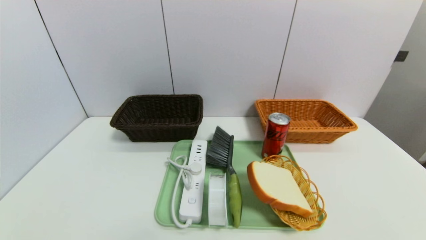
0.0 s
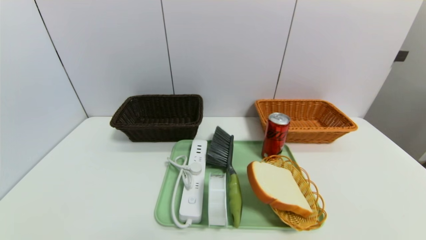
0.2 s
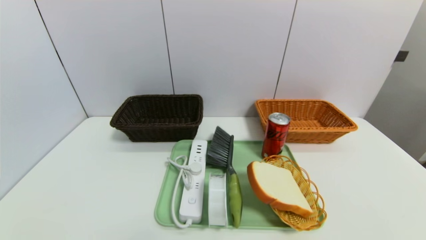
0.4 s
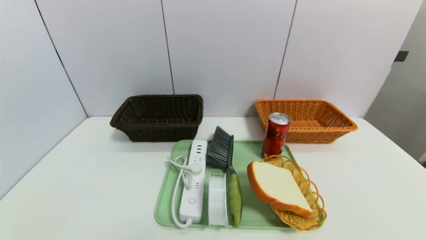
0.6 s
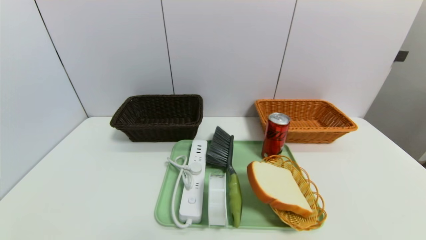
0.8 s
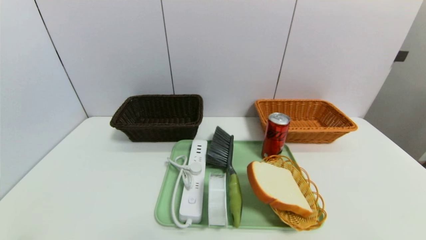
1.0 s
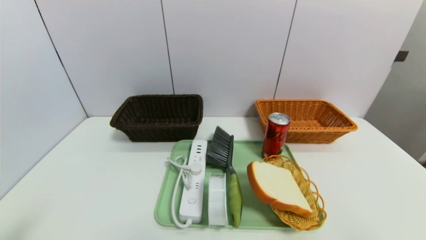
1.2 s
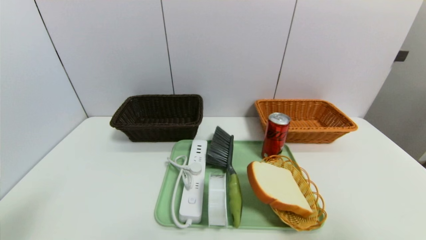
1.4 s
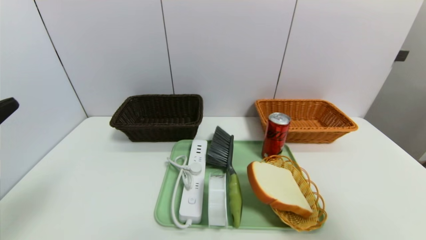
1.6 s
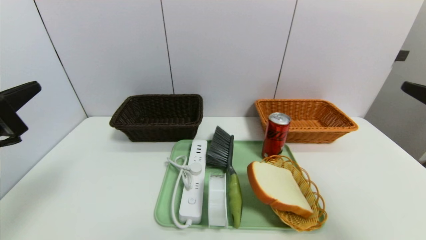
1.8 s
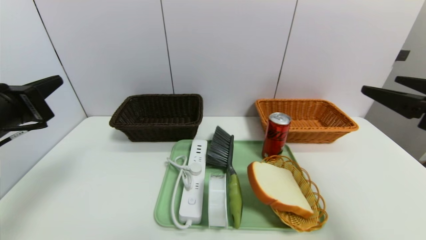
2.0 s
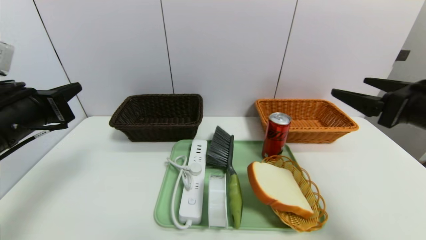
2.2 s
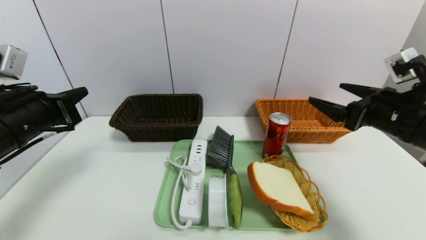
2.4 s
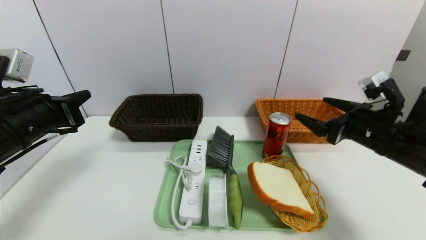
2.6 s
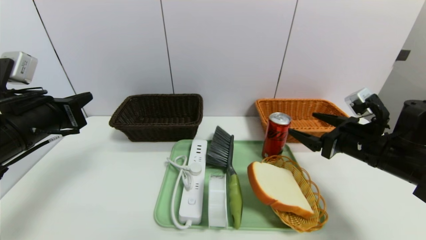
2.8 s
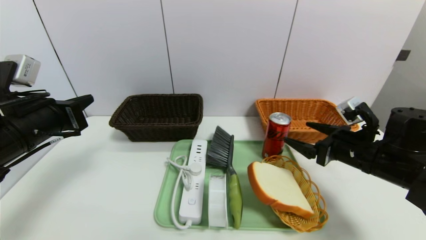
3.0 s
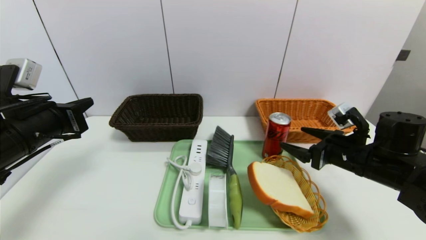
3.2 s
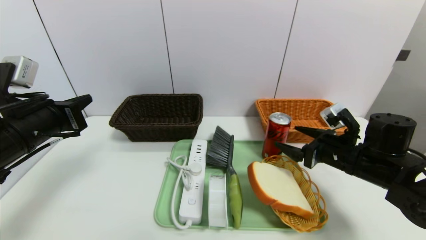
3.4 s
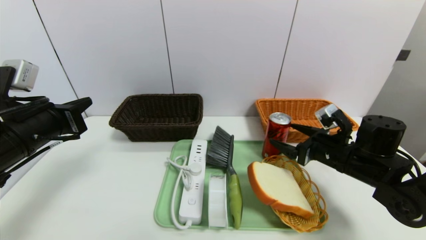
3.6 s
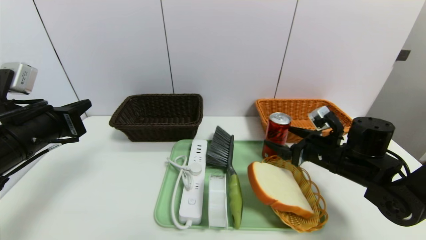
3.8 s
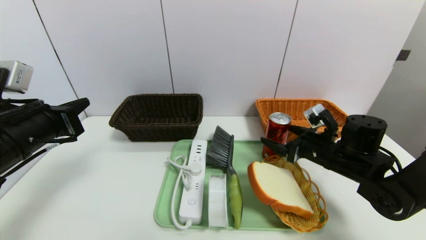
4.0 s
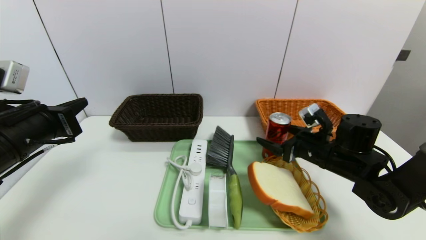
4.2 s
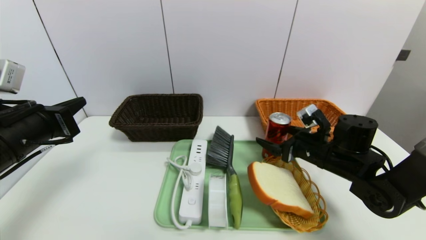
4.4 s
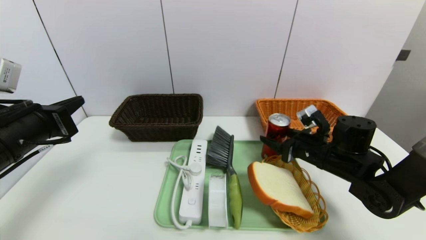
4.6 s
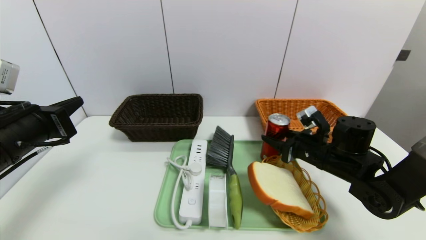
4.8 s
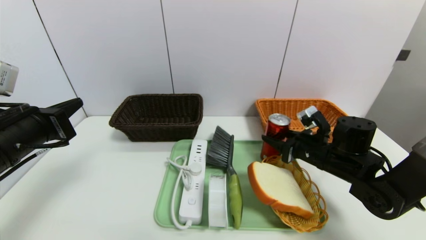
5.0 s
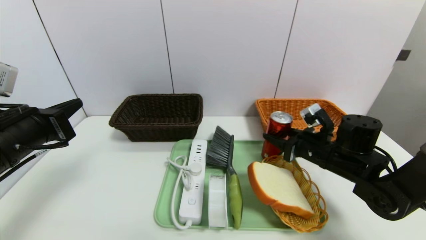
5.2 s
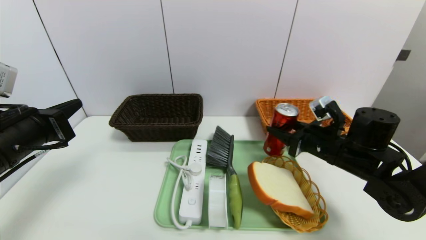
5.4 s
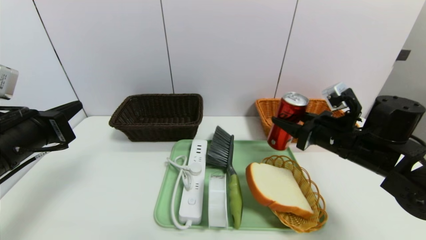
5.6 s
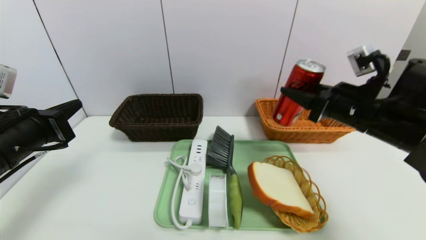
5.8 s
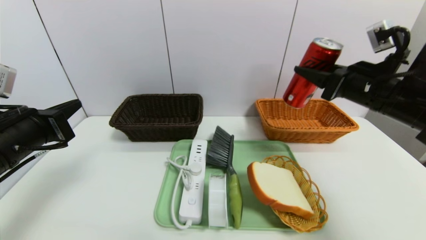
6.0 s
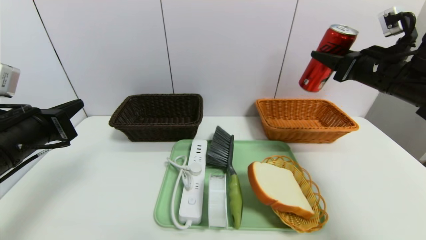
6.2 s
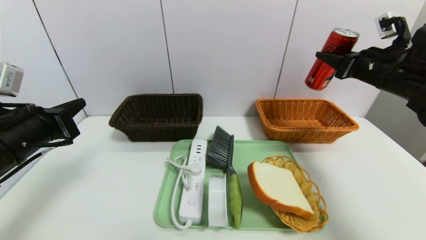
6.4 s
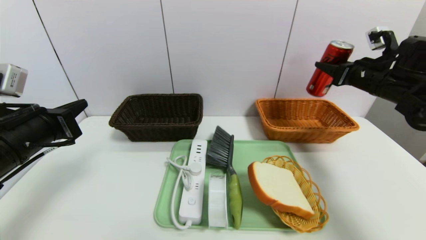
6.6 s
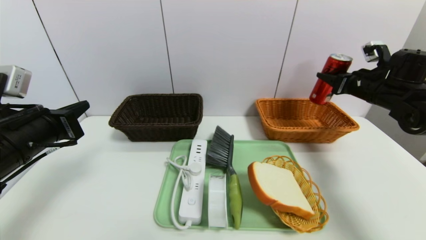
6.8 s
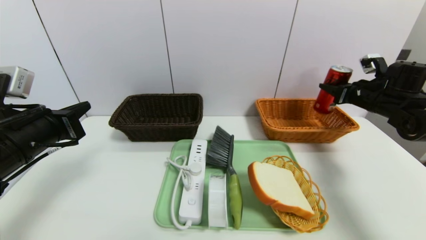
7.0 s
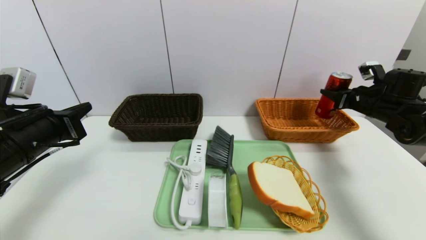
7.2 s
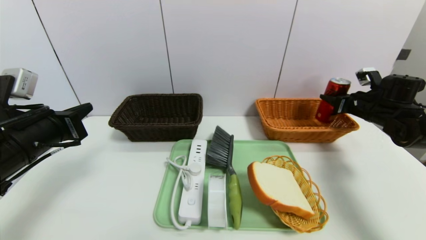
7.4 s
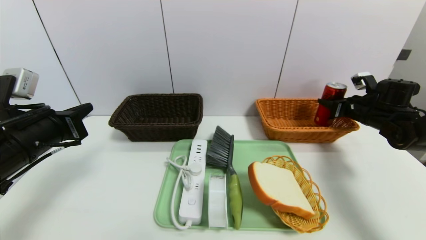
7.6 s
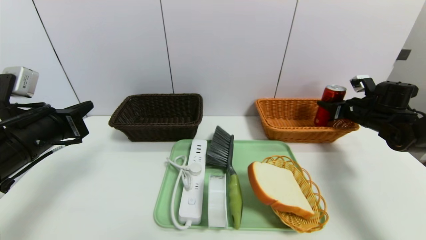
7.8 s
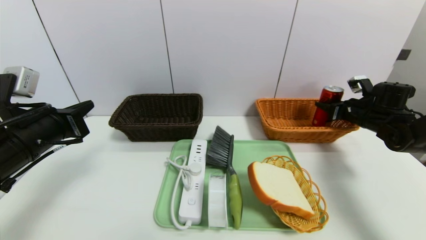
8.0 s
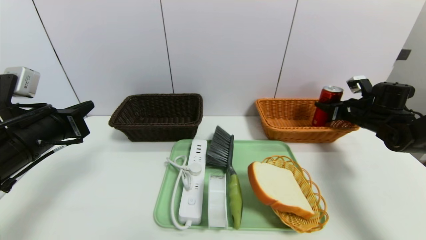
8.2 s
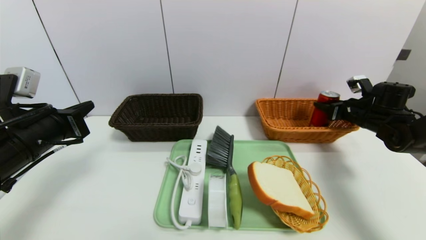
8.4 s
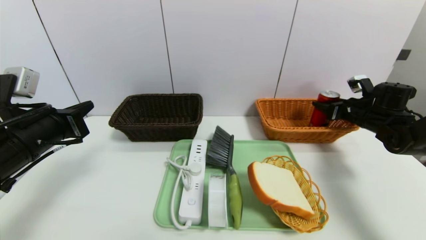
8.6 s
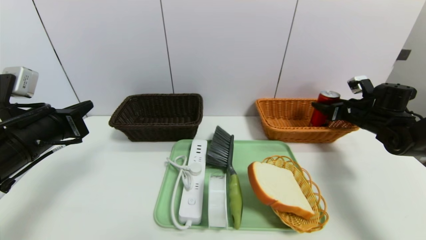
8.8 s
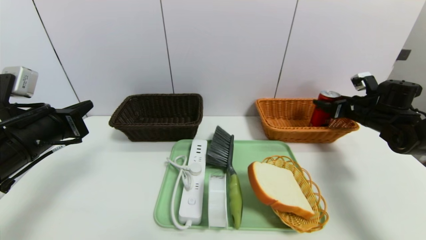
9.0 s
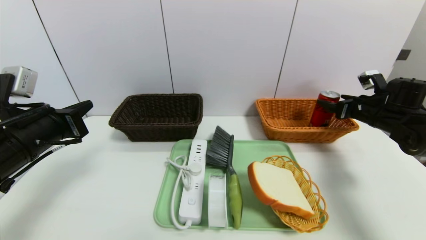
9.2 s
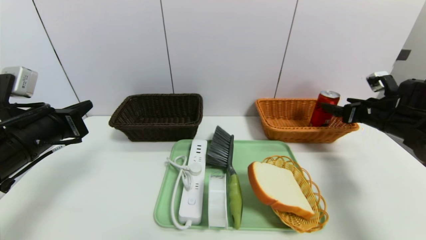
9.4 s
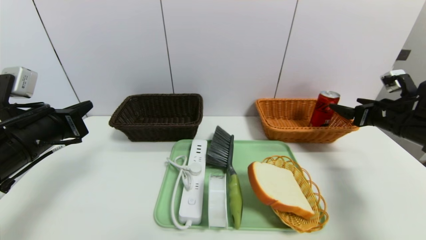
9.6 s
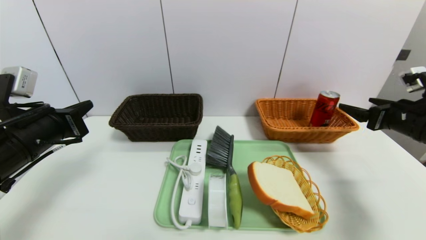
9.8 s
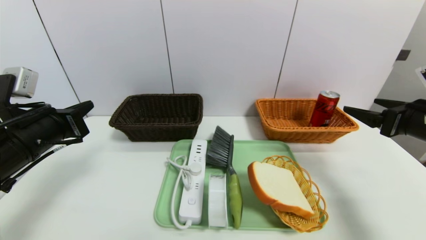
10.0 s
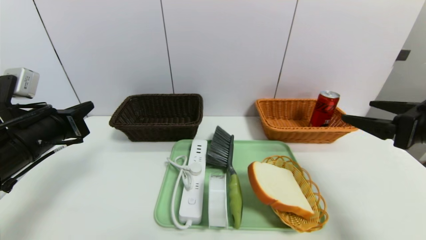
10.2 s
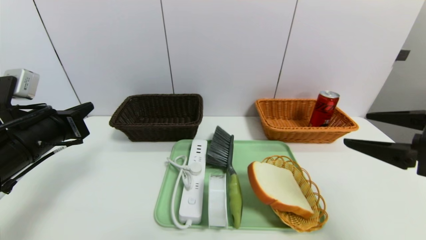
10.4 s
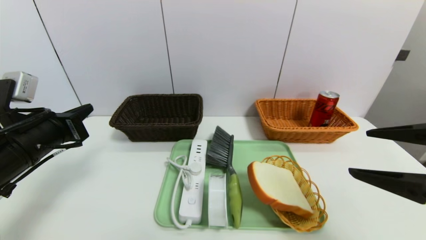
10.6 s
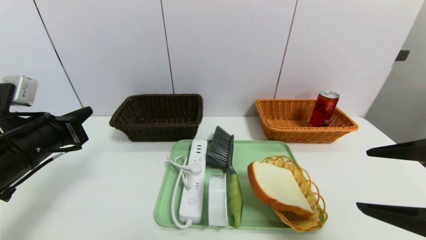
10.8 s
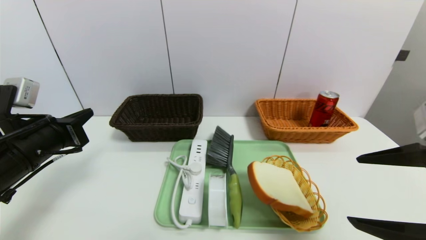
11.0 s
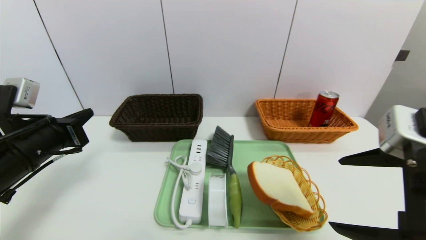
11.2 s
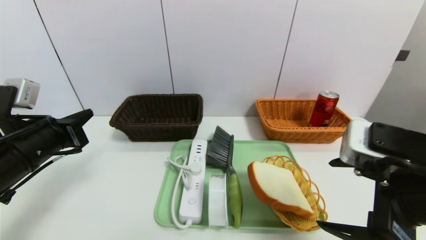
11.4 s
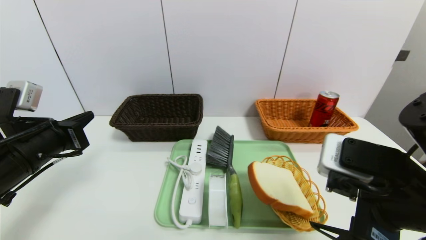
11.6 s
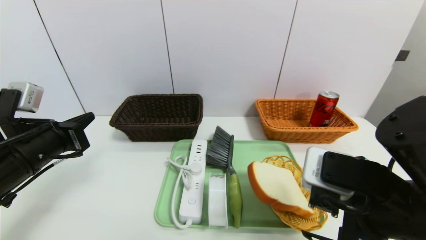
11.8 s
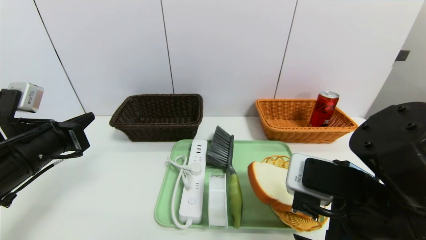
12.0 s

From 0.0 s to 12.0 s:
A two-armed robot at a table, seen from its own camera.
Task of the whole recording: place the food in the right basket with the right gripper, and place the non food items in the left basket with the left gripper.
Step, from 0.0 s to 9.6 s: Grasp the canned cola and put it in the right basket.
From 0.0 s to 1.6 s: Both grippers travel together upward and forward, roughly 25 cm.
From 1.6 s to 3.0 s: The right gripper moves forward and downward, some 20 cm; the left gripper heads forward, covering about 10 cm.
From 3.0 s to 4.4 s: The right gripper ends up about 5 cm from where it was.
From 4.4 s to 6.0 s: The right gripper heads upward, covering approximately 15 cm, and closes.
From 6.0 s to 7.6 s: The right gripper heads to the right, downward and forward, covering approximately 20 cm.
From 7.6 s to 9.0 s: The right gripper opens.
From 9.0 s to 10.4 s: The right gripper moves backward and upward, roughly 25 cm.
From 10.4 s to 12.0 s: The right gripper is displaced to the left by about 15 cm.

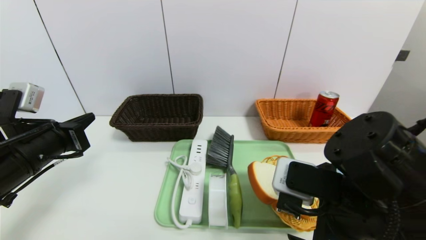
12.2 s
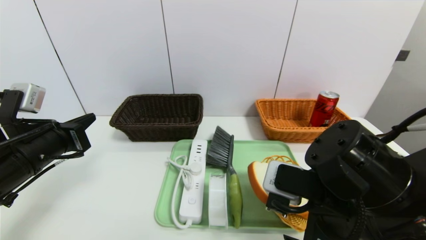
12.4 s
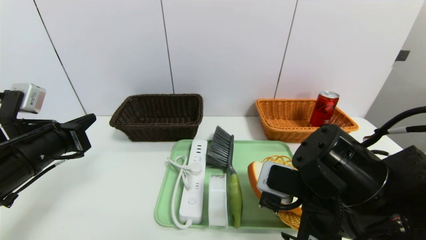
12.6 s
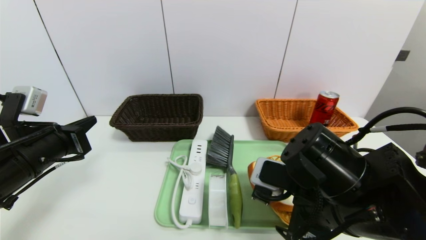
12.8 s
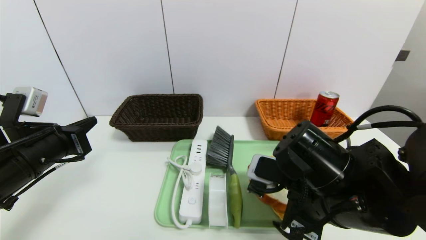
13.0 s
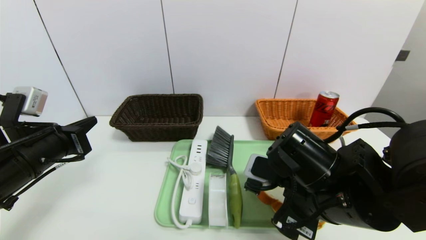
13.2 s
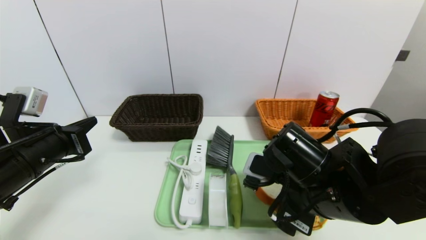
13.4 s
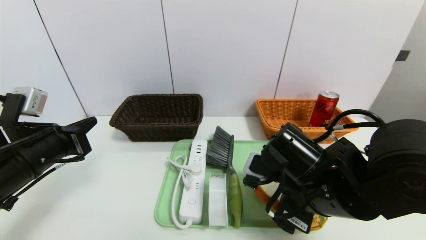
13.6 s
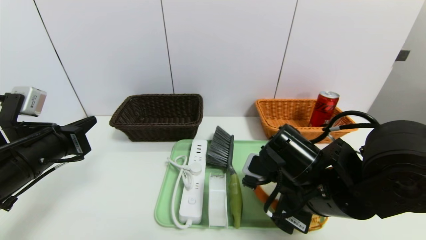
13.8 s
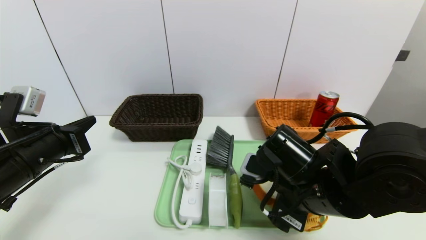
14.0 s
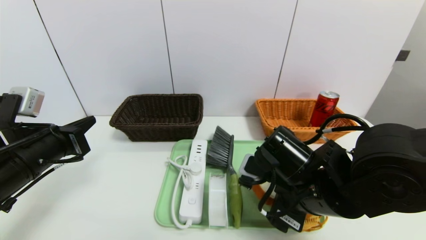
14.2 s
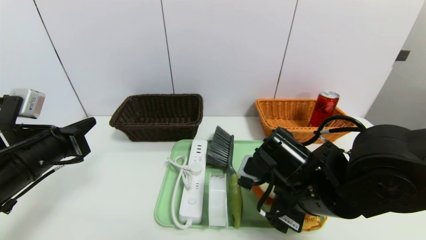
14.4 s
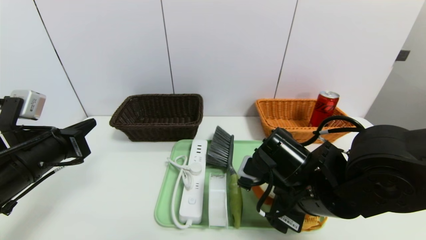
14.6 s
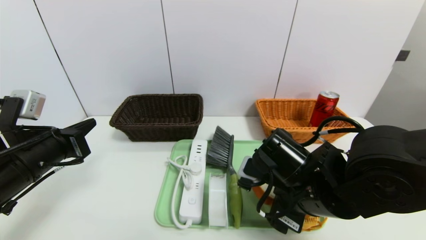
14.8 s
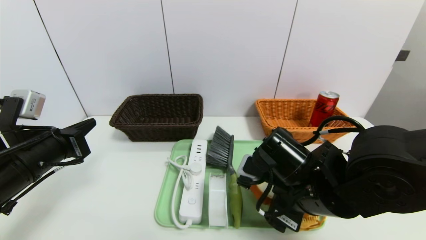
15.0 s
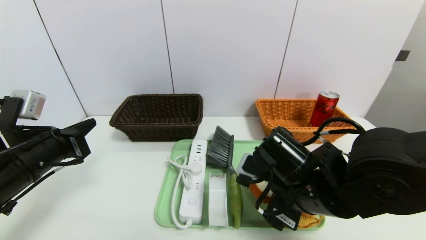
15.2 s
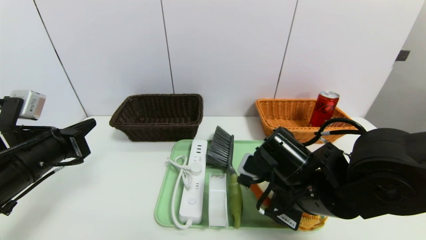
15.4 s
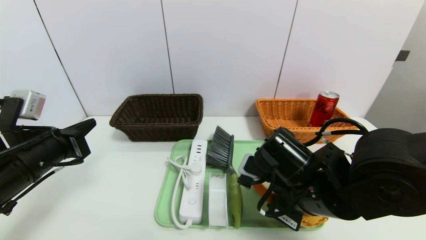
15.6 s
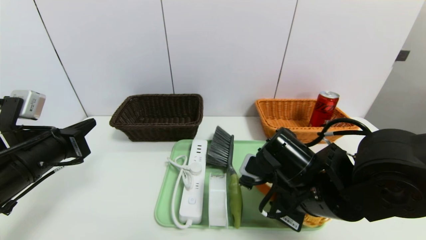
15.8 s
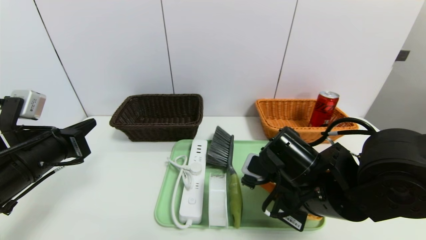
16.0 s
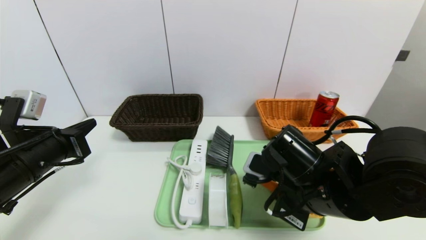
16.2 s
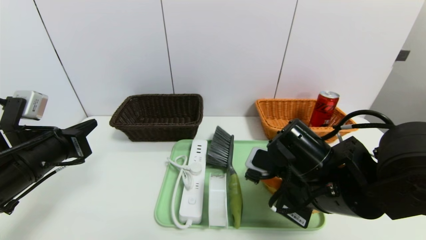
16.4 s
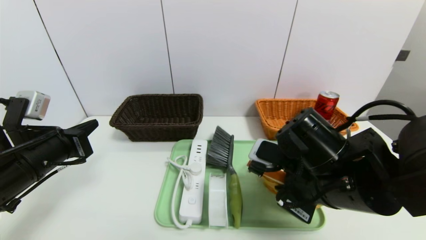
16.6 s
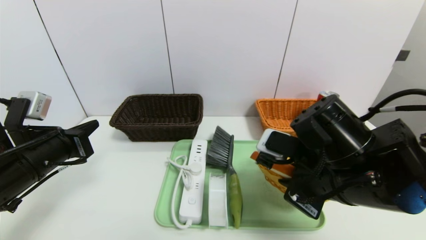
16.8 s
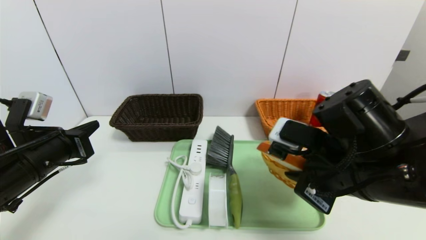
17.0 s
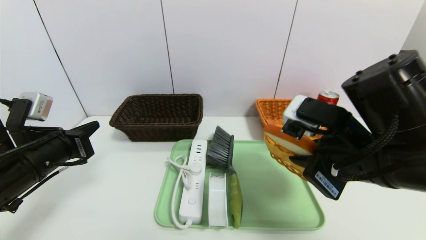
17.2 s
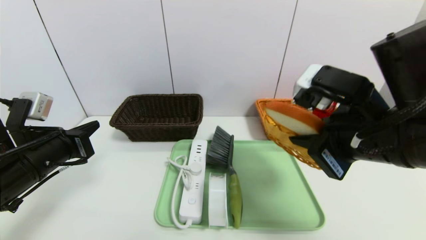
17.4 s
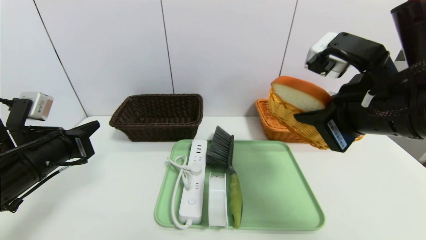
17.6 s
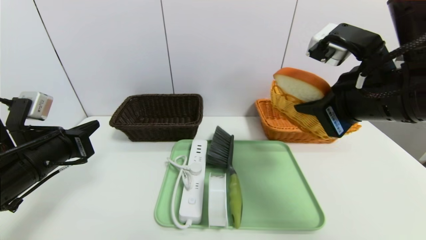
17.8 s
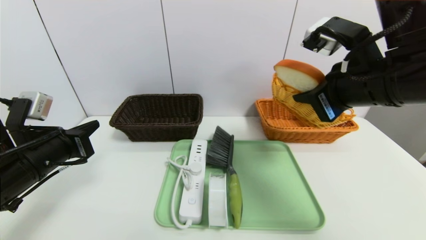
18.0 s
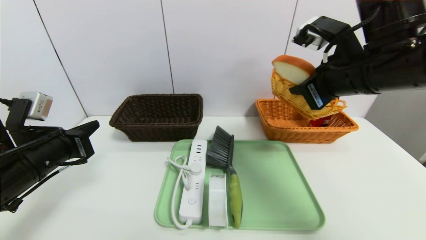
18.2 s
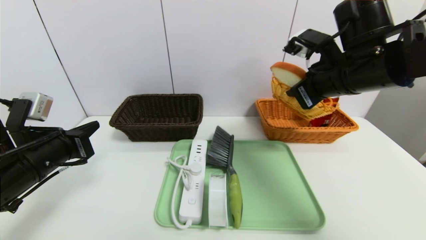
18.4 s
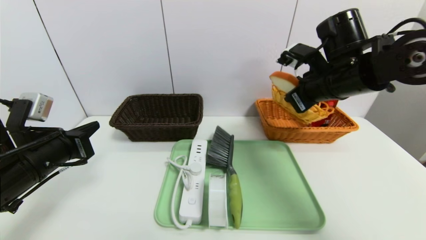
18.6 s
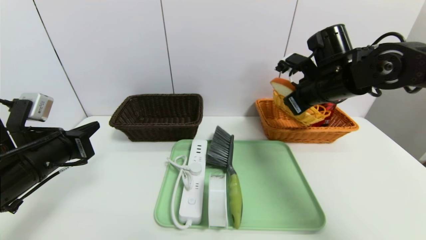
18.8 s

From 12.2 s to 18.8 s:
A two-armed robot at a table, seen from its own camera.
Task of the whole recording: place the food in the right basket with the right gripper, and place the non food items in the left basket with the left gripper.
From 12.2 s to 13.8 s: The right gripper shifts about 5 cm forward.
From 13.8 s to 15.4 s: The grippers make only small movements.
From 15.4 s to 17.2 s: The right gripper shifts some 10 cm upward, and closes up.
From 17.2 s to 18.8 s: The right gripper shifts roughly 20 cm forward.
